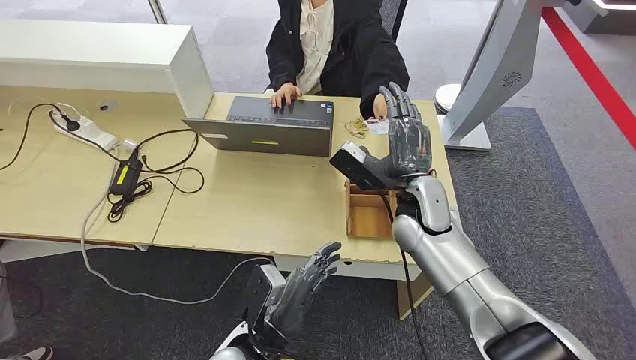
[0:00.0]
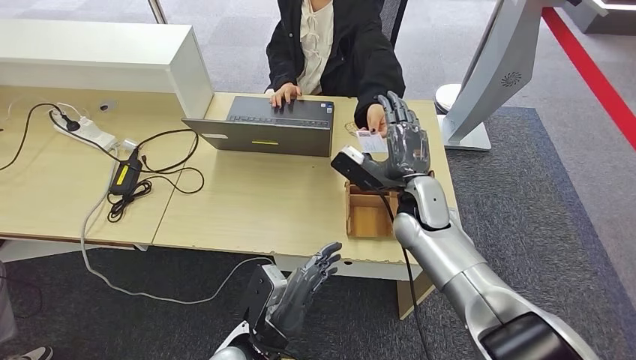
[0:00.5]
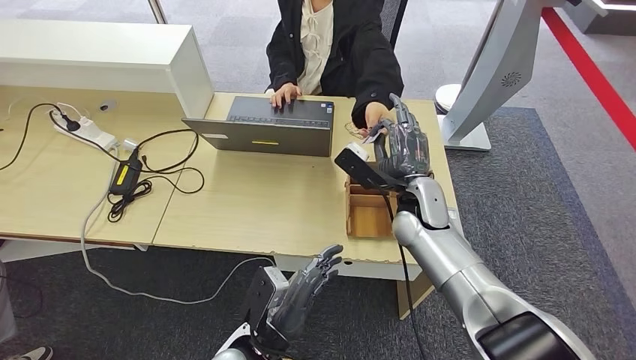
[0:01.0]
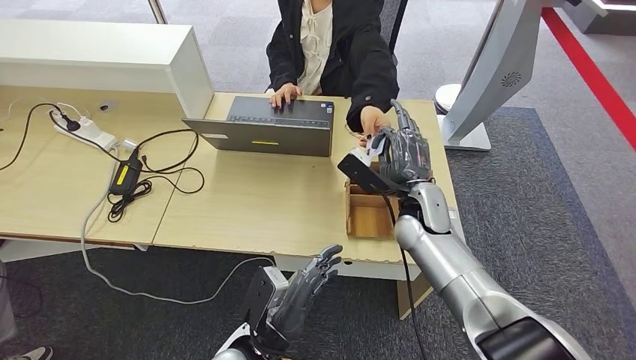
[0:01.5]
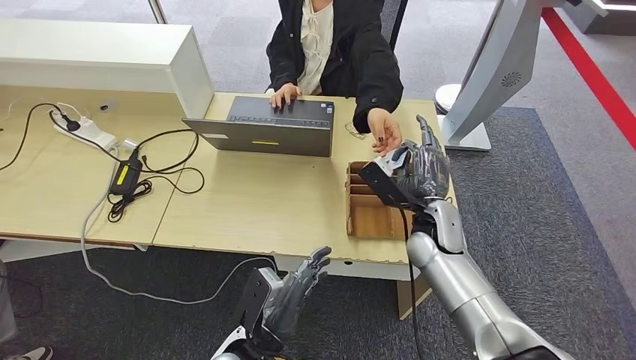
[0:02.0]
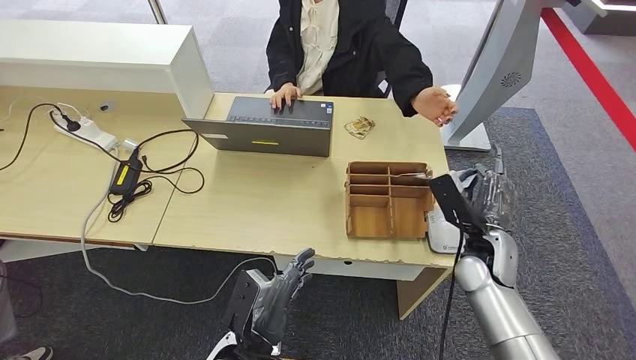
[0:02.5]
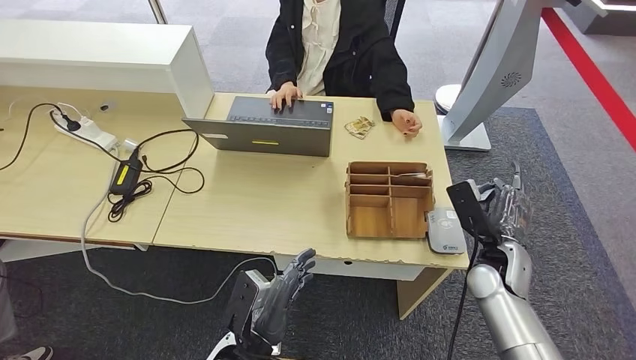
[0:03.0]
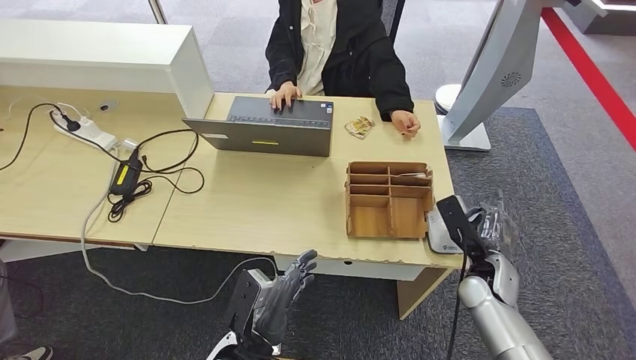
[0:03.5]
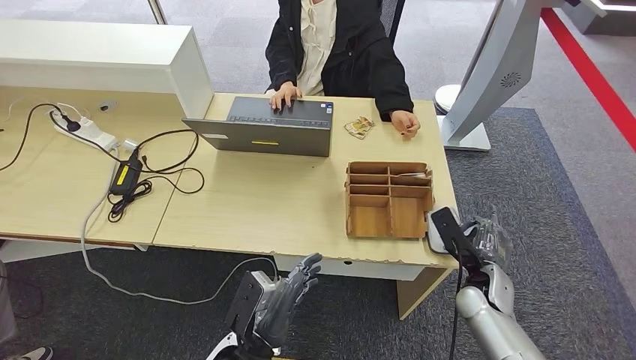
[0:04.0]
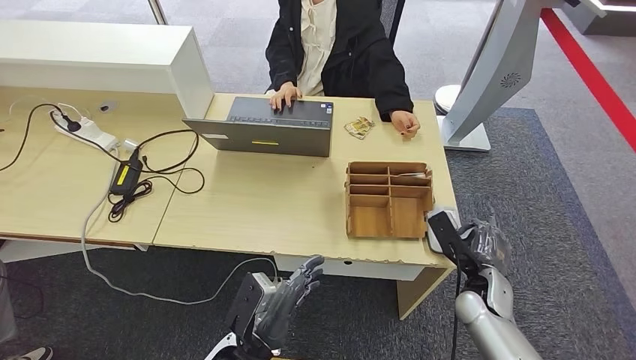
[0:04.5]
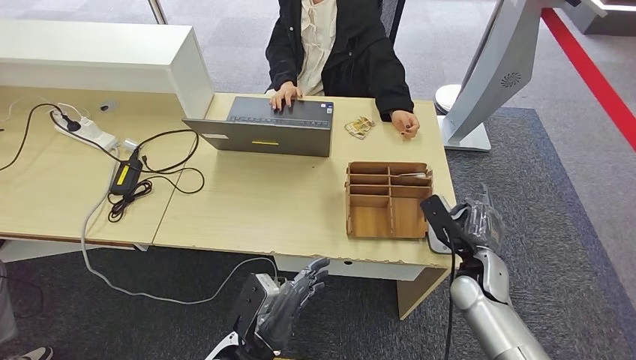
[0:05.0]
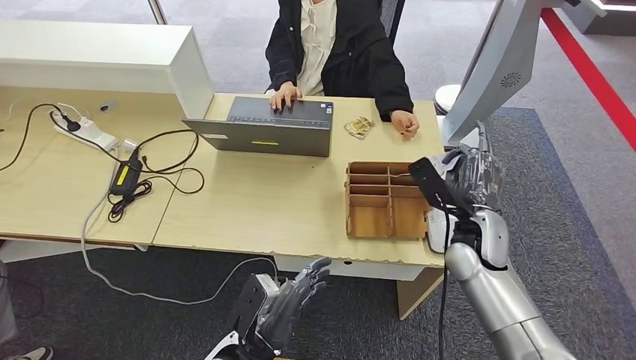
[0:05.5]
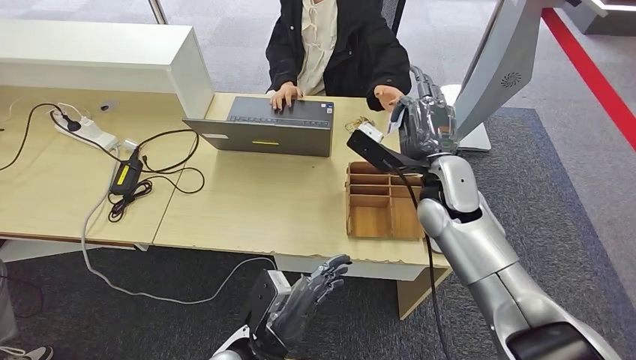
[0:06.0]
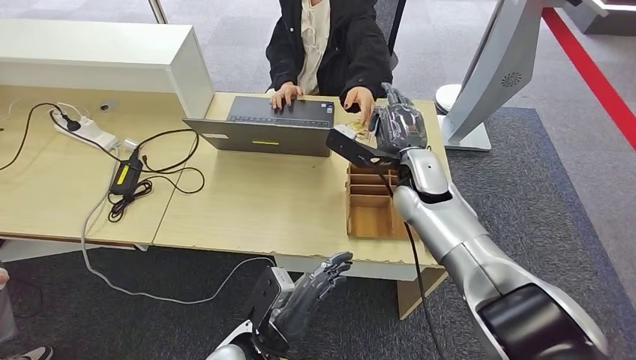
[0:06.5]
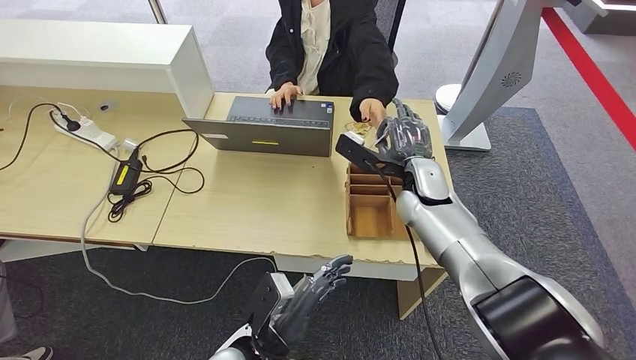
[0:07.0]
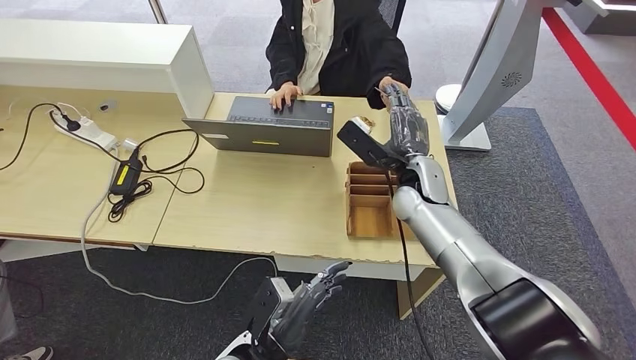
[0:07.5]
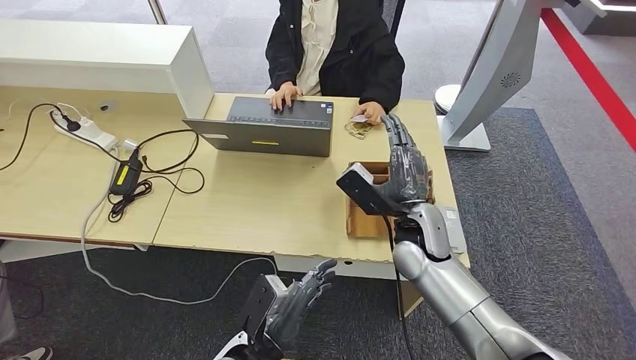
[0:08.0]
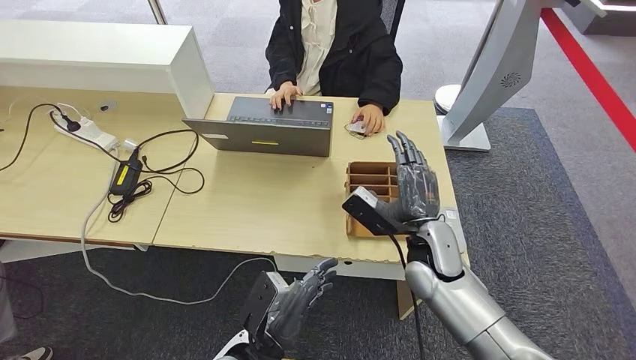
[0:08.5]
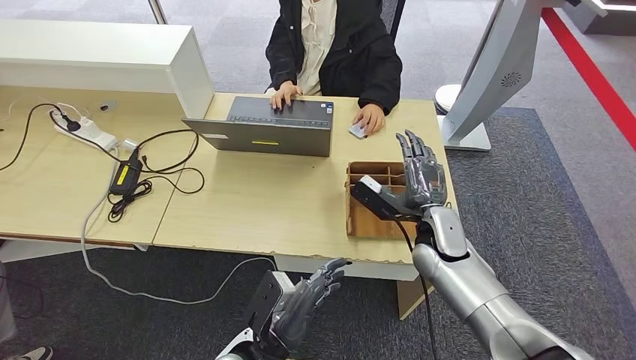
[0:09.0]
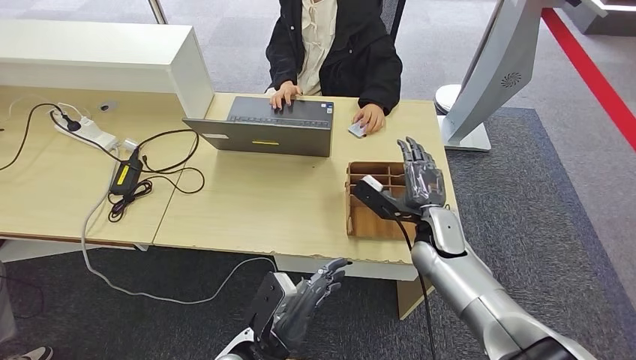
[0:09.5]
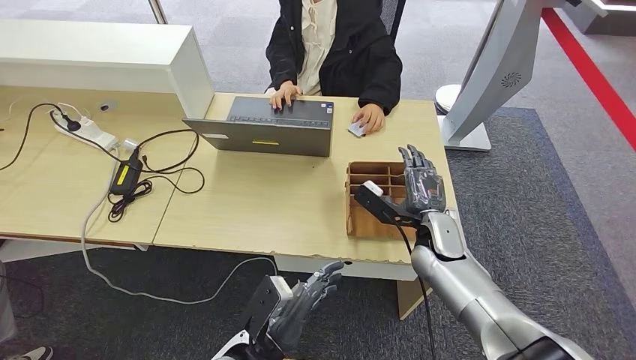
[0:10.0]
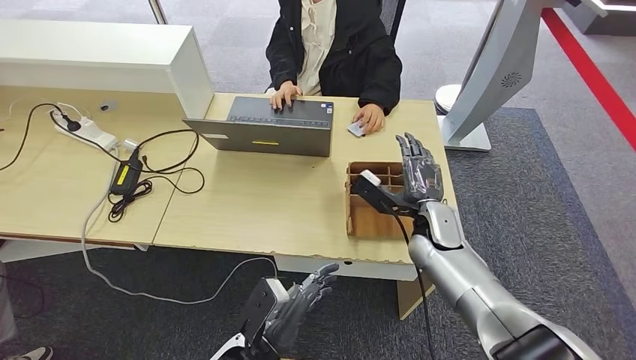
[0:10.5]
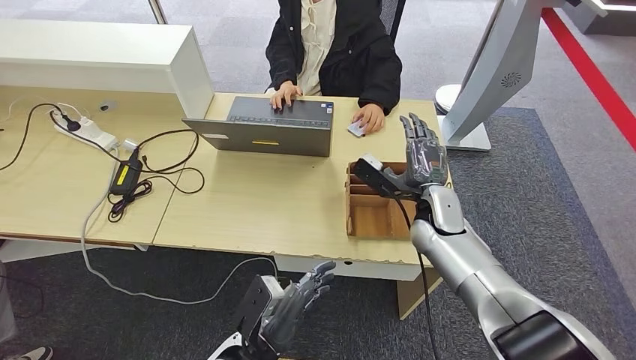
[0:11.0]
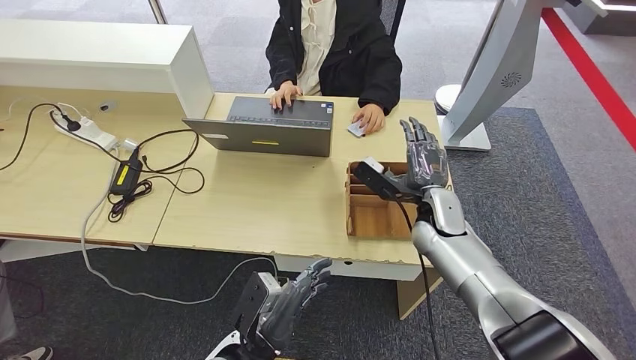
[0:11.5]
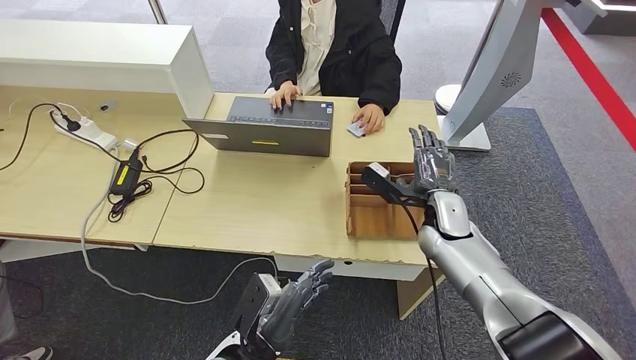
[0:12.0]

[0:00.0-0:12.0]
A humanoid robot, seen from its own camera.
Step, 0:00.0 to 0:02.5: Take the ID card from the person's hand.
Step, 0:03.0 to 0:05.5: Place the ID card on the card reader.
Step, 0:06.0 to 0:08.0: Hand the ID card to the person.
0:02.0 to 0:04.0: The right hand shifts some 15 cm to the right, downward and backward.
0:04.0 to 0:06.0: The right hand moves upward, to the left and forward, roughly 25 cm.
0:06.0 to 0:08.0: The right hand moves downward, approximately 5 cm.
0:08.0 to 0:10.0: The right hand heads downward and to the right, covering approximately 10 cm.
0:10.0 to 0:12.0: The hands move only a little.

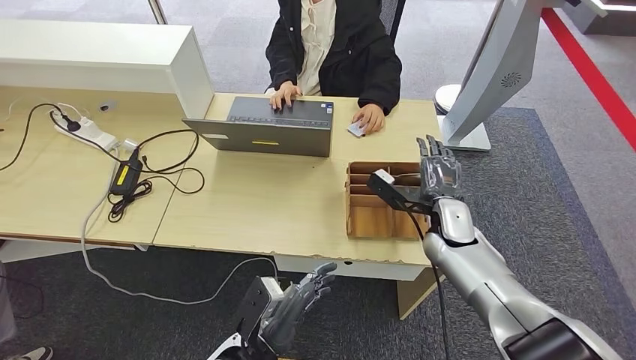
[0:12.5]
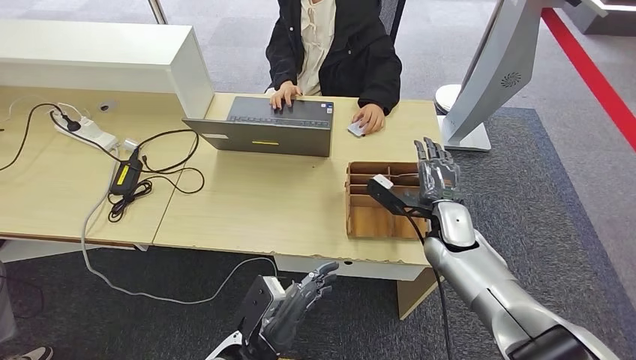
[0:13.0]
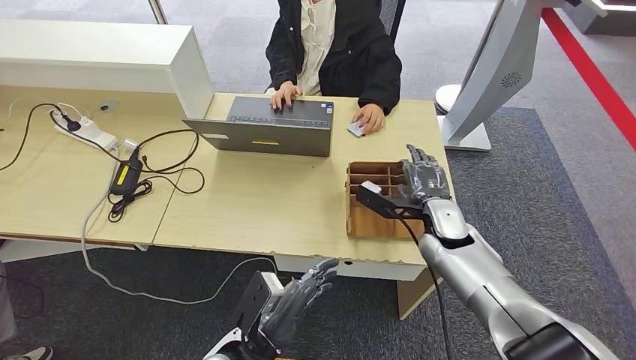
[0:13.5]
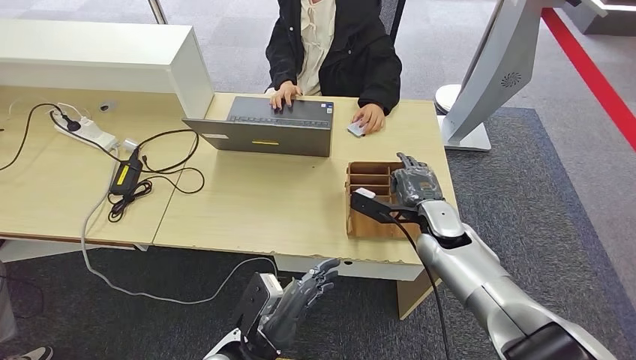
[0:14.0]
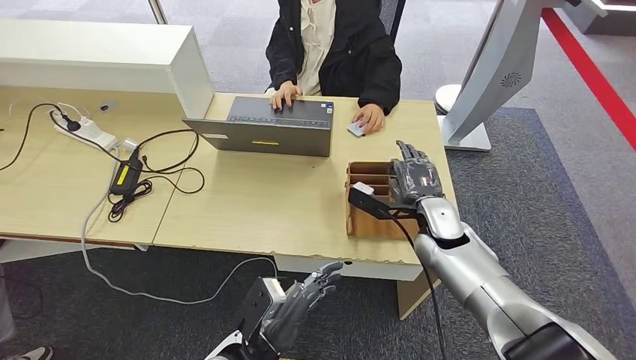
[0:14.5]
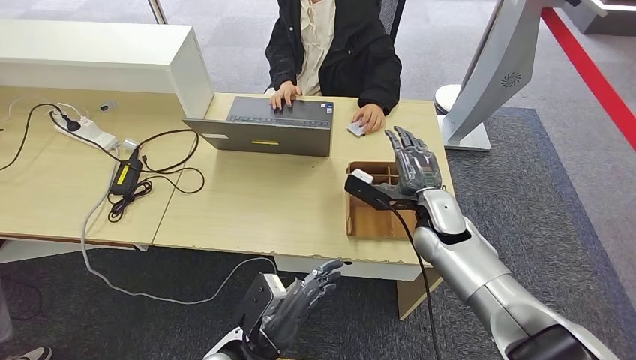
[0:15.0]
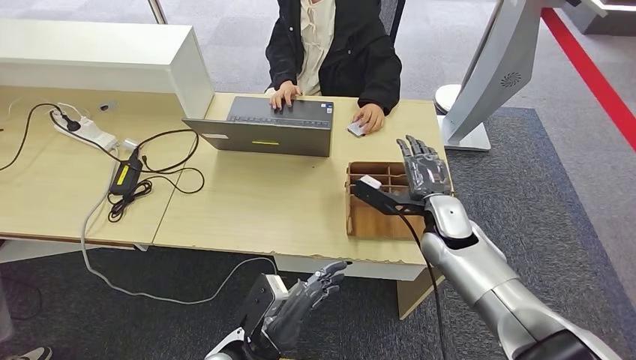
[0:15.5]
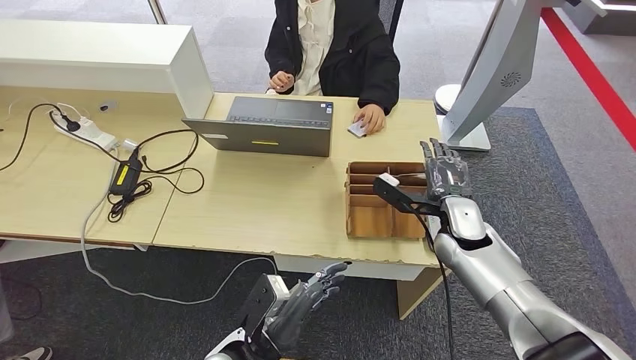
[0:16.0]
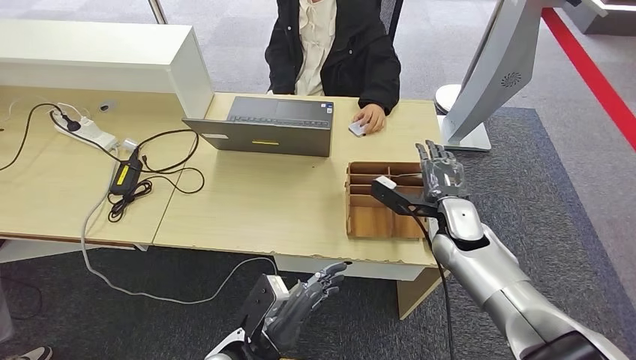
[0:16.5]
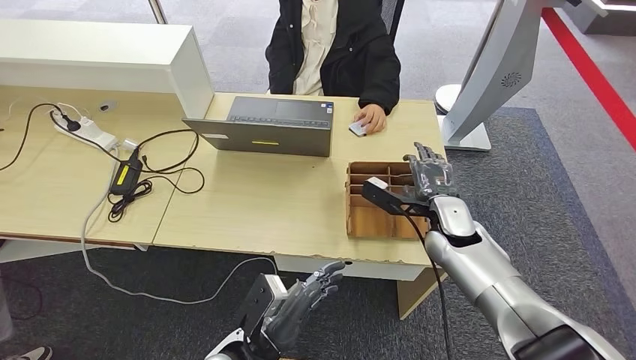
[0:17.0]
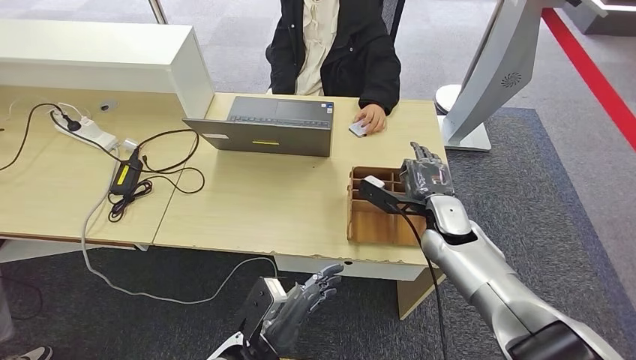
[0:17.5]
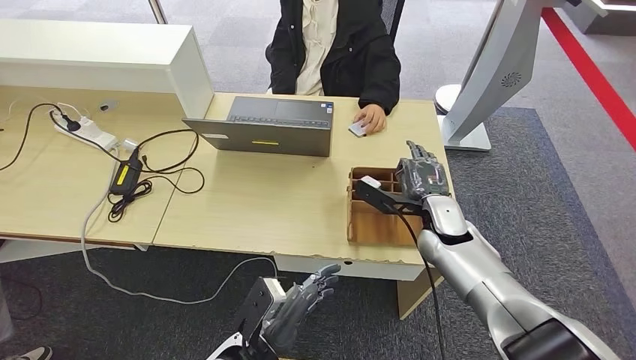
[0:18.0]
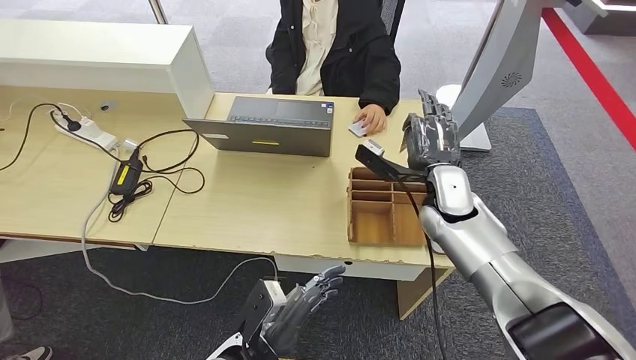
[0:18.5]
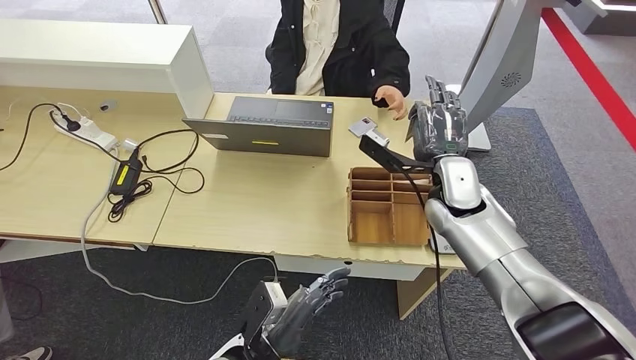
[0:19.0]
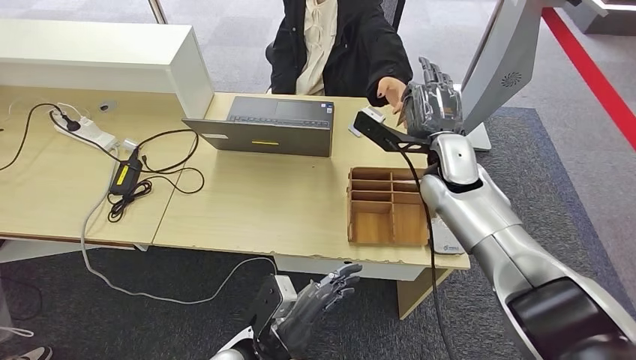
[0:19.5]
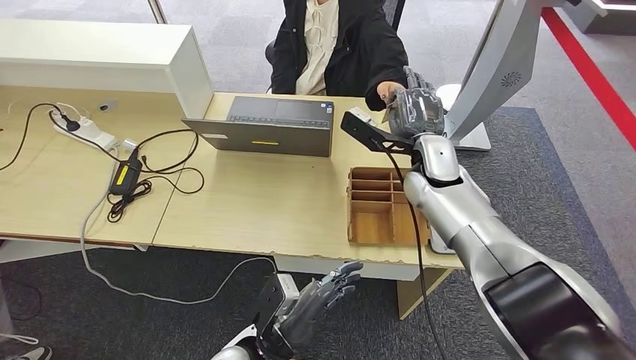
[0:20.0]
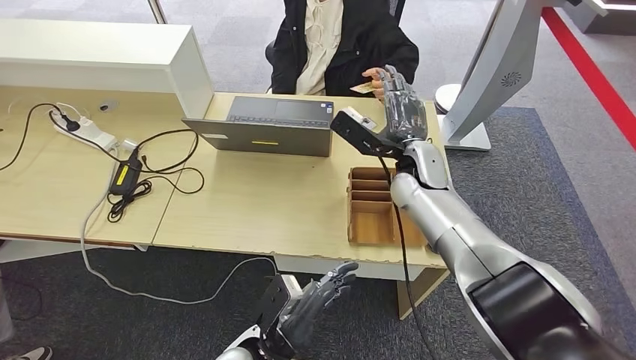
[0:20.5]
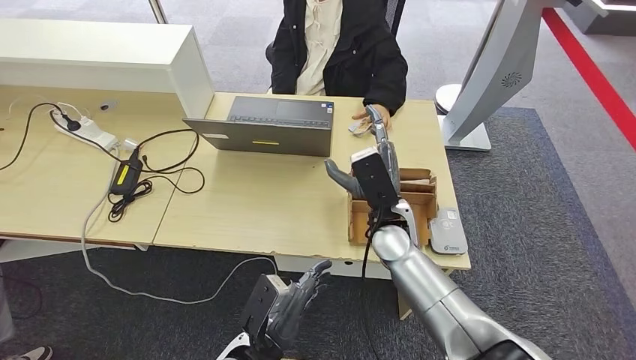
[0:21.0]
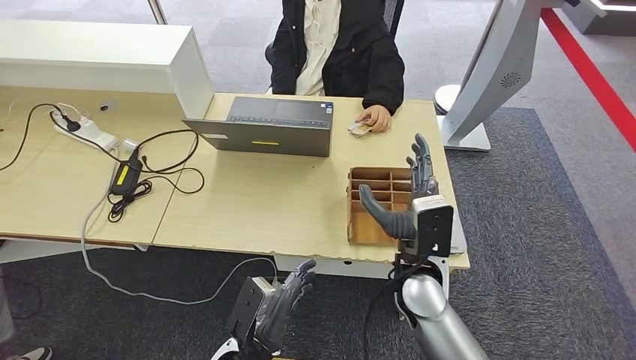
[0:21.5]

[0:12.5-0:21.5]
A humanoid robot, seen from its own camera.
Step, 0:17.0 to 0:19.0: Pick up the room key from the key card box.
Step, 0:20.0 to 0:21.5: Hand the room key to the person.
0:12.5 to 0:17.0: The hands stay close to where they were, moving slightly.
0:17.0 to 0:19.5: The right hand heads upward, covering approximately 10 cm.
0:19.5 to 0:21.5: The right hand travels backward, downward and to the left by about 20 cm.
